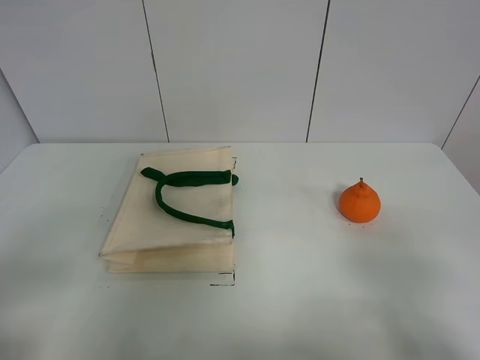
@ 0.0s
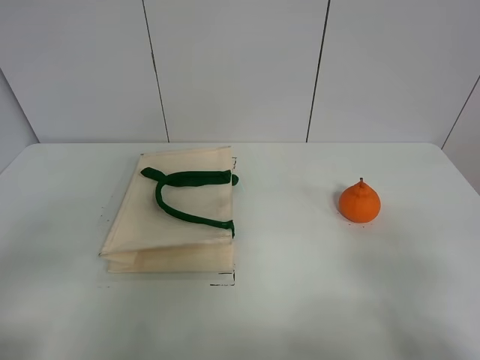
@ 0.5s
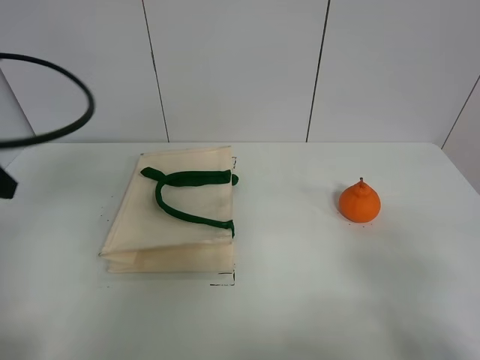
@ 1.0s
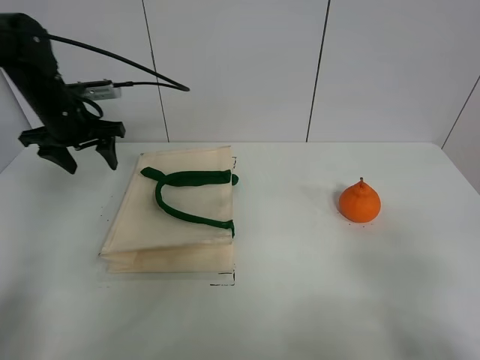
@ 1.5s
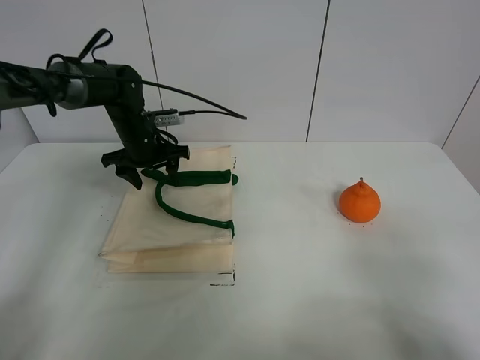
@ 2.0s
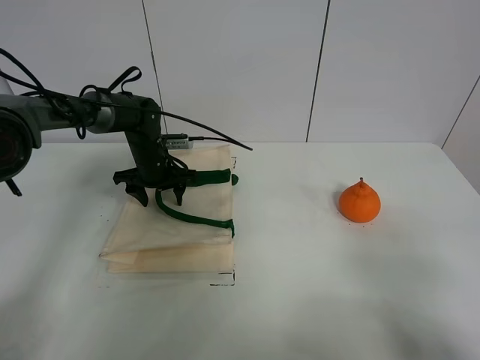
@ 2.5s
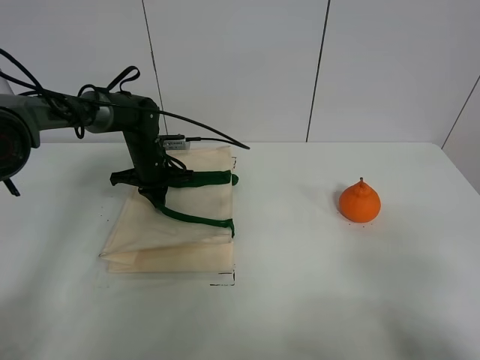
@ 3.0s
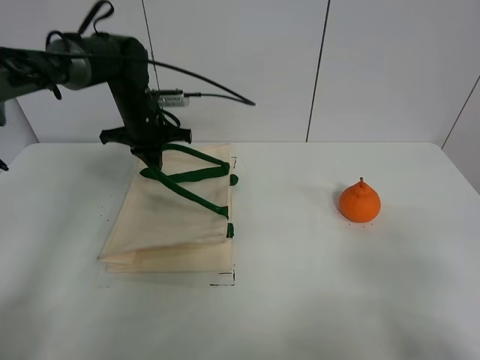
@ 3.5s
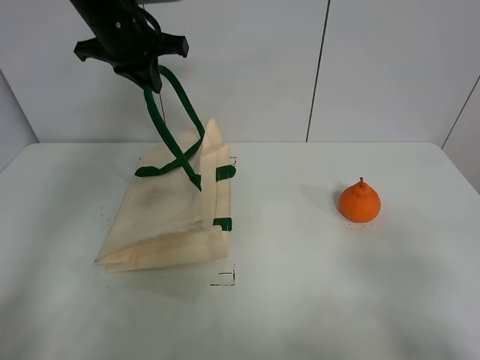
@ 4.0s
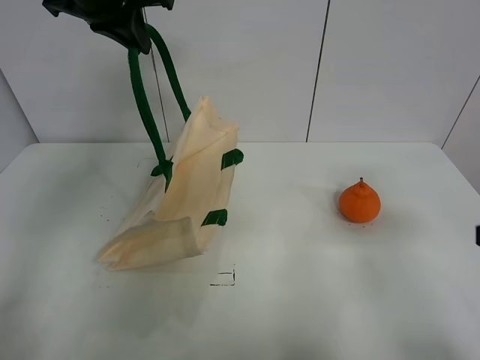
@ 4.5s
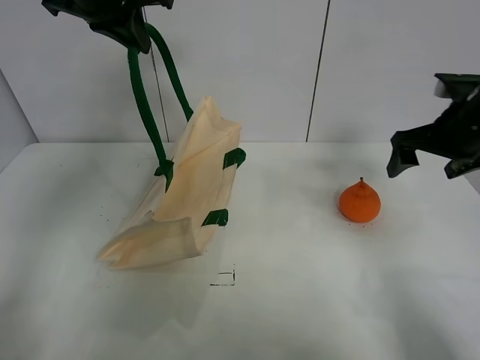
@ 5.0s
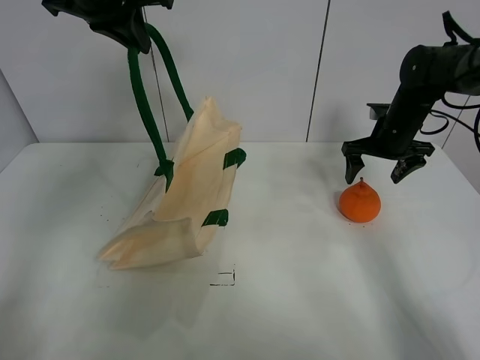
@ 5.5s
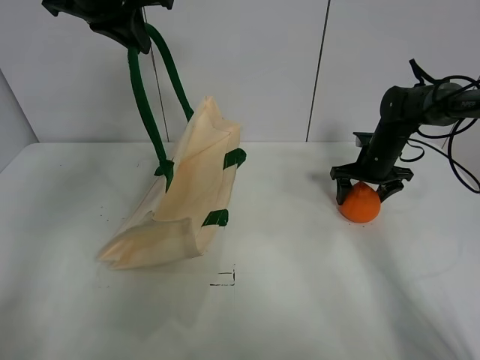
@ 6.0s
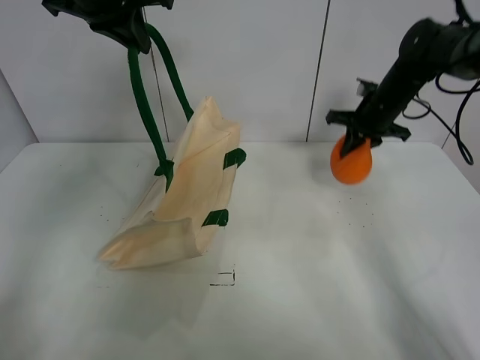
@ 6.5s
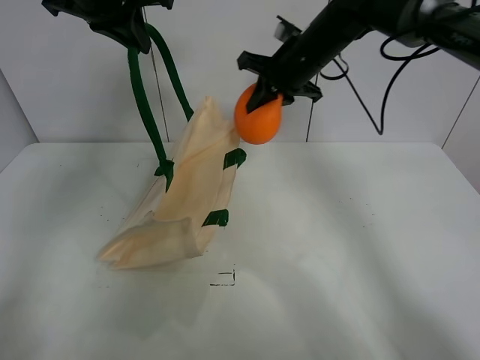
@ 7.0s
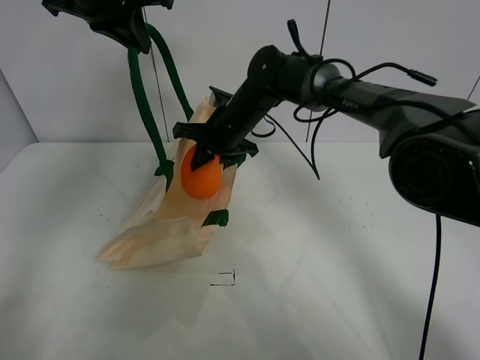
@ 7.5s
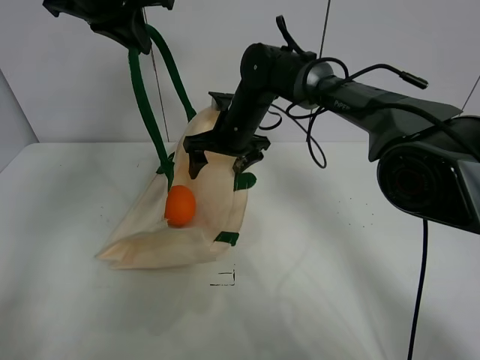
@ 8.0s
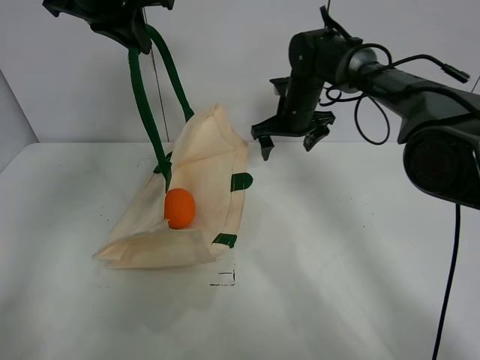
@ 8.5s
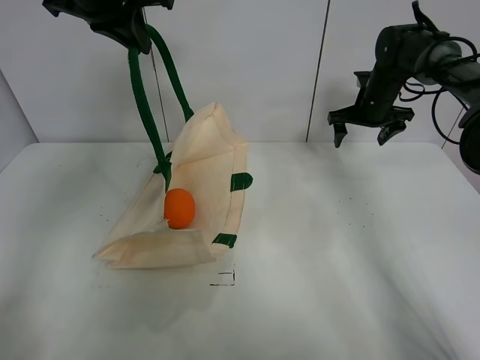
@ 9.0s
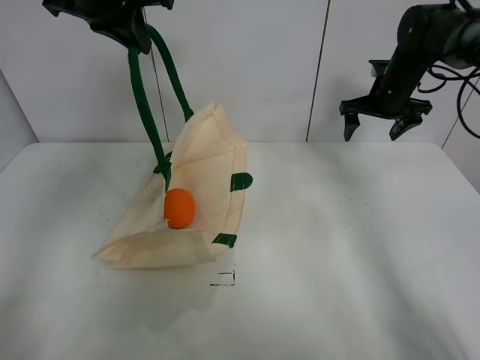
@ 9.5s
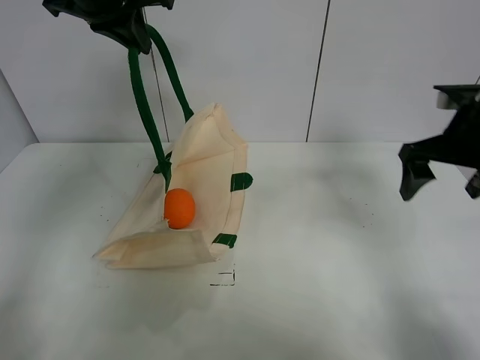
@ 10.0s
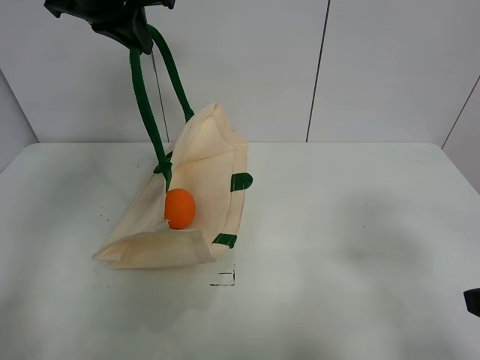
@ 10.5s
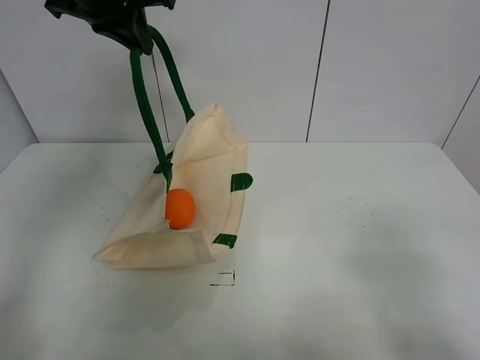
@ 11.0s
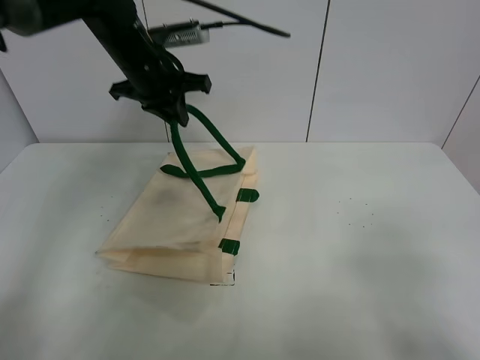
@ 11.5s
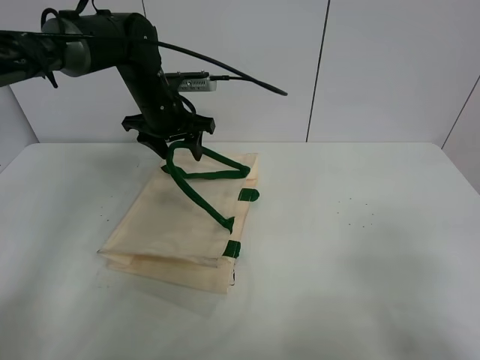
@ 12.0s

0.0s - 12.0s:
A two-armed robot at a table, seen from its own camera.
Task of the whole recording: open the white linen bag and put the orange in the bag.
Step, 0.0s - 4.0s: Lift the handbag with left gripper.
Step, 4.5s - 6.0s: Grasp the orange with right gripper.
Step, 6.5s - 8.0s: Place the orange in the handbag with right gripper.
0.0s - 2.0s: The left gripper moves forward, roughly 50 cm.
2.0s - 4.0s: The left gripper travels upward by about 20 cm, and closes up.
4.0s - 6.0s: The right gripper travels forward by about 50 cm, while the left gripper travels upward by approximately 5 cm.
6.0s - 8.0s: The right gripper shifts some 25 cm to the left, and closes, then opens again.
8.0s - 10.0s: The right gripper heads to the right and backward, covering about 30 cm.
10.0s - 12.0s: The left gripper shifts approximately 20 cm downward, and opens its fingers, while the right gripper is displaced backward by some 30 cm.

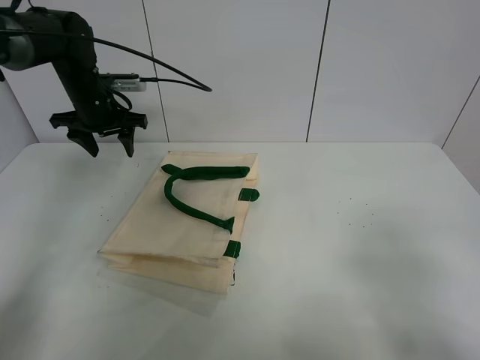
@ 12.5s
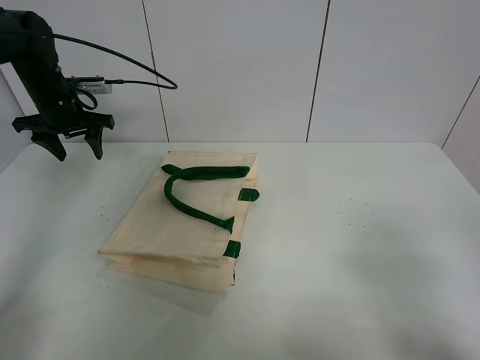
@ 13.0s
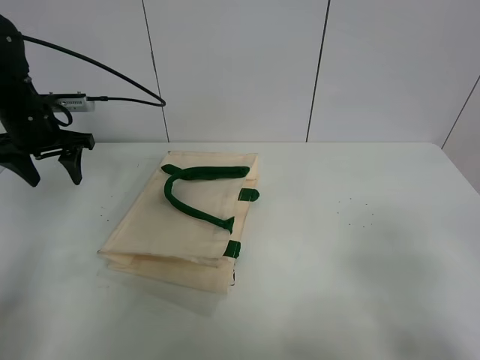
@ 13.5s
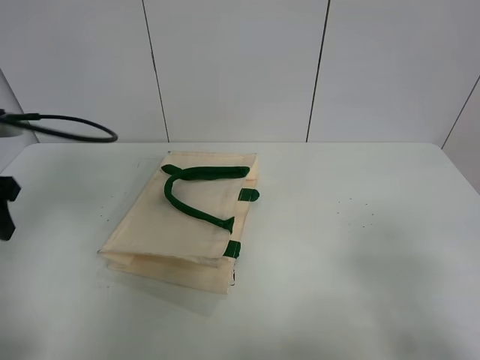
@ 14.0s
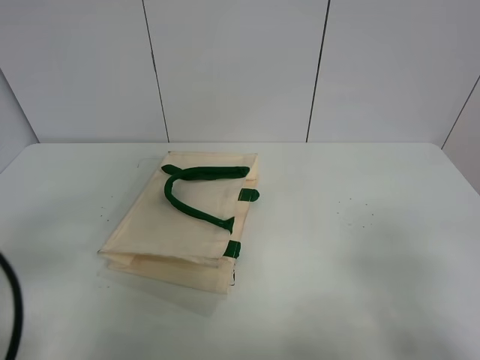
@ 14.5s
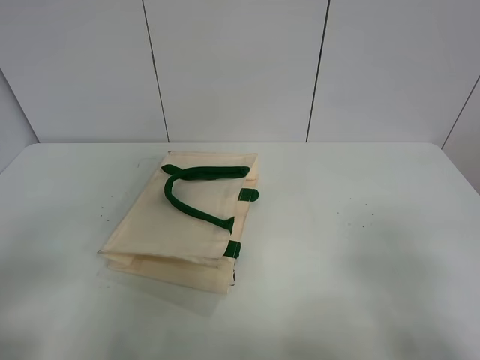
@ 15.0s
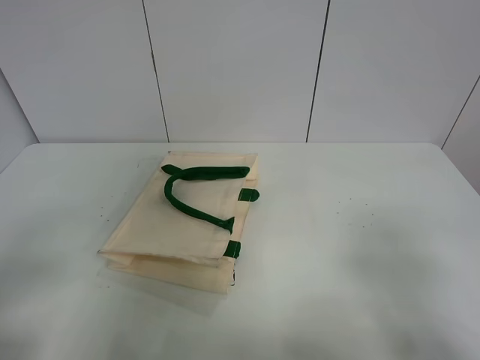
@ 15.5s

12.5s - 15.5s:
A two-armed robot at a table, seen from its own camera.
Task of the whole recording: open the white linen bag and put the orange in the bag.
12.5s - 14.0s: The left gripper heads backward, covering about 25 cm.
14.0s - 15.5s: The left gripper moves backward, roughly 20 cm.

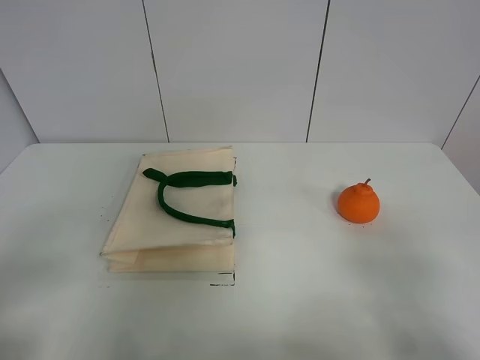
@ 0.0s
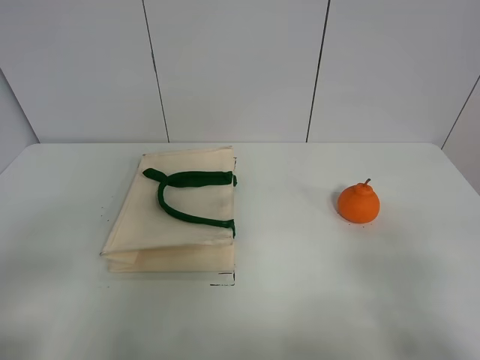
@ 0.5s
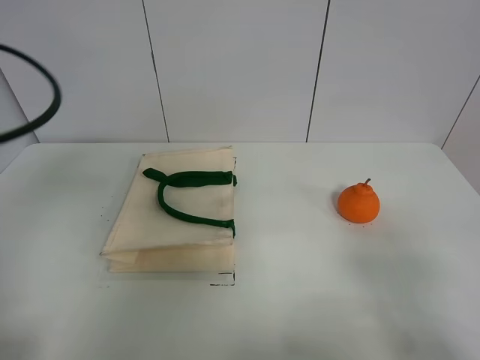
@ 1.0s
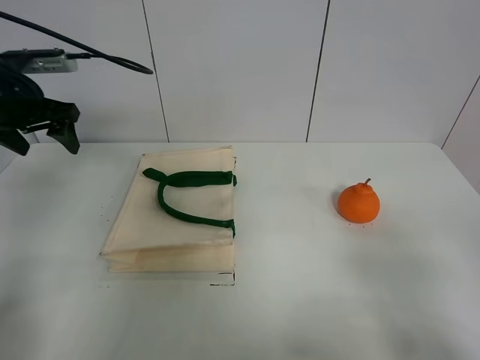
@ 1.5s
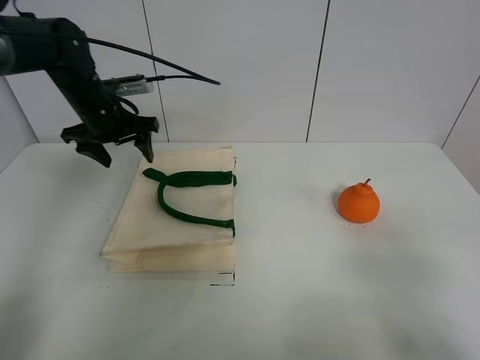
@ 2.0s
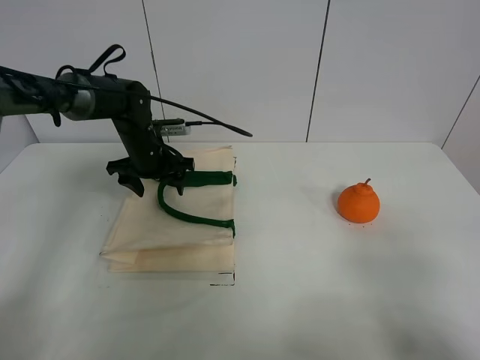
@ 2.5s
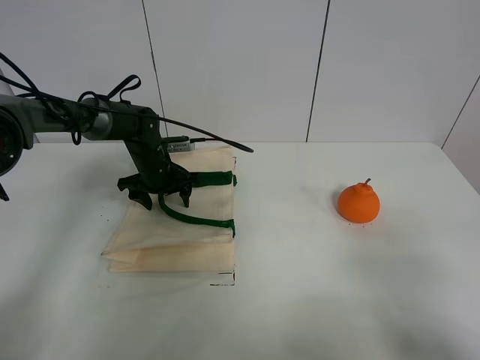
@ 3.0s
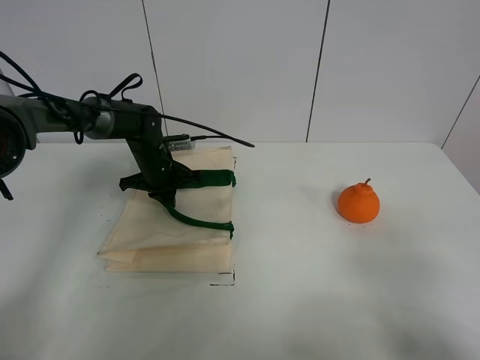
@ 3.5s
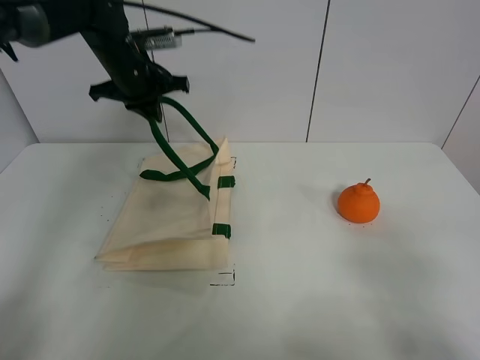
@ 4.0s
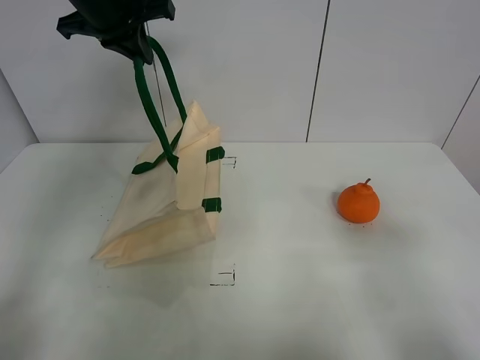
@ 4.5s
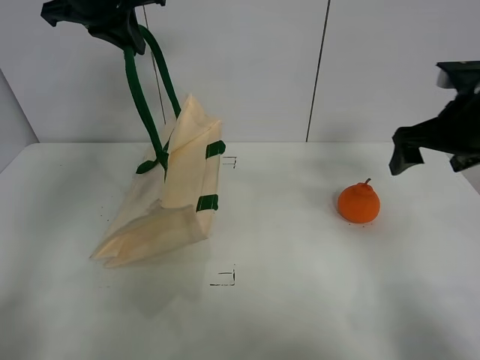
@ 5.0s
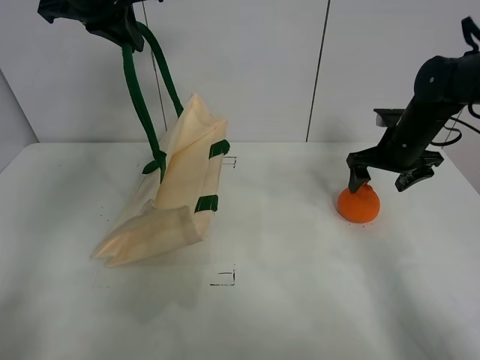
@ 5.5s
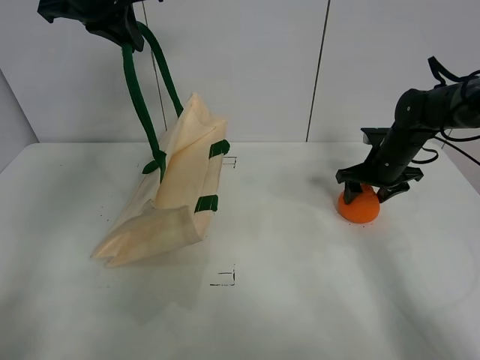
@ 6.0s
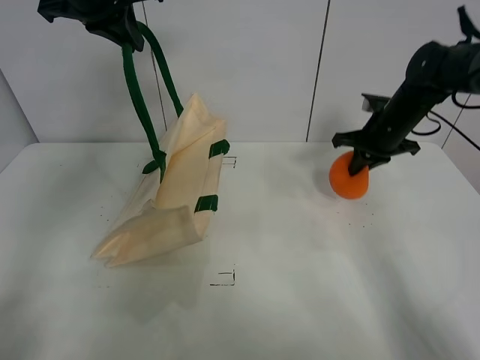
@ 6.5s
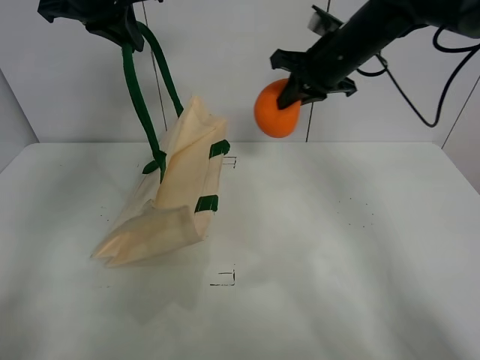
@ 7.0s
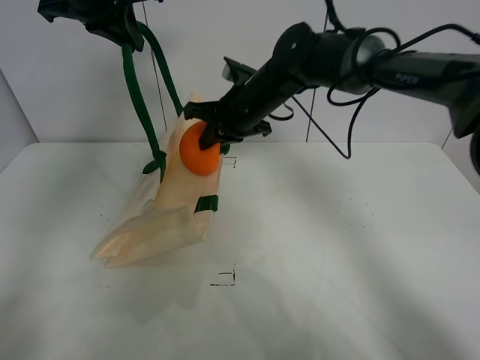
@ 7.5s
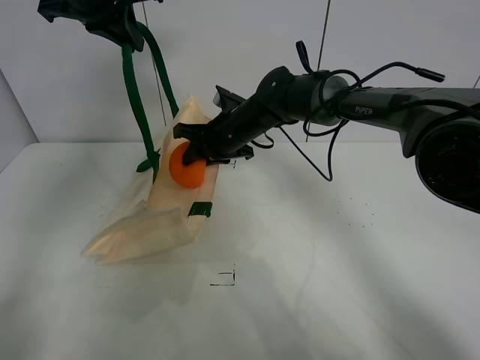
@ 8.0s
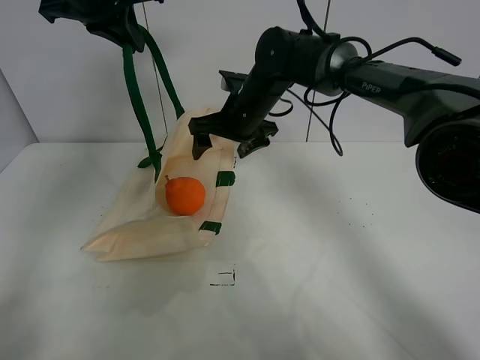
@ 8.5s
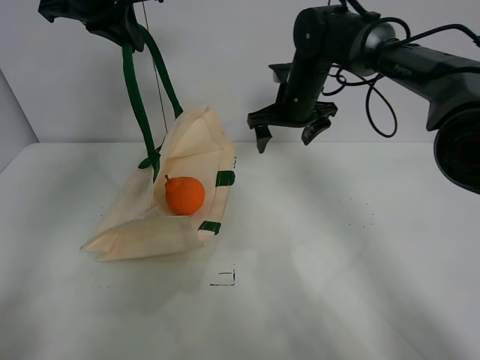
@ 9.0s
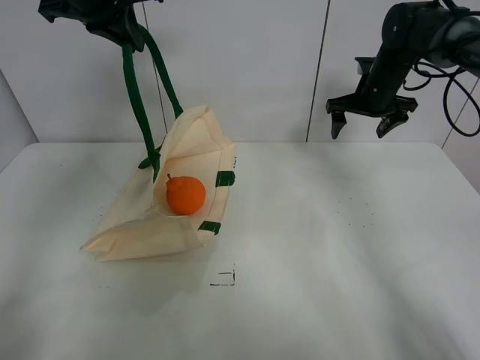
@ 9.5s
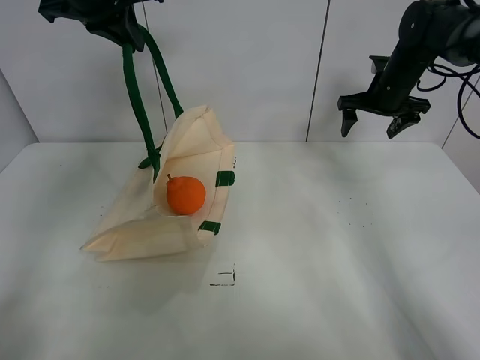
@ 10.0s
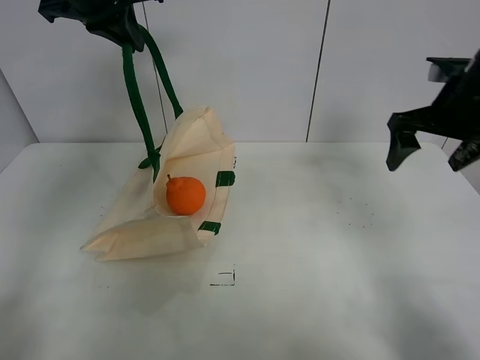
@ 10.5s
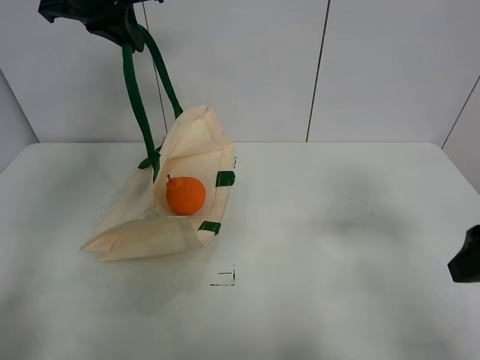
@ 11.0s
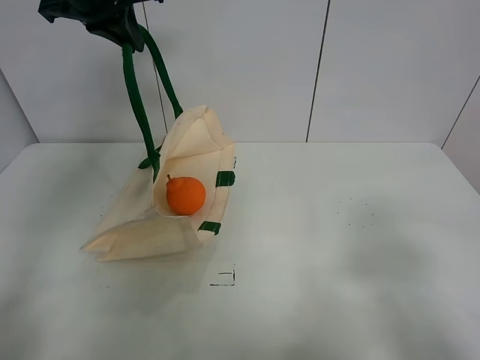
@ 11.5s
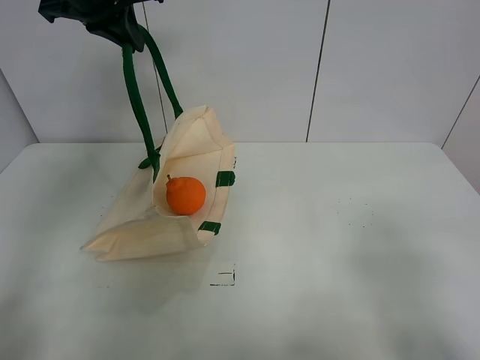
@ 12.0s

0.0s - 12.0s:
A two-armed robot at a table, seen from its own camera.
Task of the whole recording: open the white linen bag and put the orange in the bag.
Step, 0.0s - 4.0s: Lift the handbag with left gripper.
Step, 4.5s - 6.0s: Grasp the orange with right gripper.
Step, 6.5s - 8.0s: Place the orange in the handbag with right gripper.
0.0s - 2.0s: The left gripper is displaced forward by some 40 cm.
2.0s - 4.0s: The left gripper moves to the right, roughly 5 cm, reaches approximately 15 cm downward, then returns, and closes its fingers.
4.0s - 6.0s: The right gripper shifts approximately 40 cm forward, while the left gripper travels upward and backward by about 15 cm.
6.0s - 8.0s: The right gripper is displaced to the left by roughly 25 cm, and closes and opens again.
8.0s - 10.0s: The right gripper is displaced to the right by some 25 cm, and opens its fingers.
10.0s - 12.0s: The right gripper shifts about 50 cm backward.
